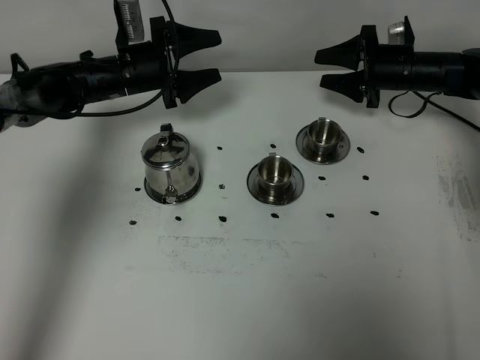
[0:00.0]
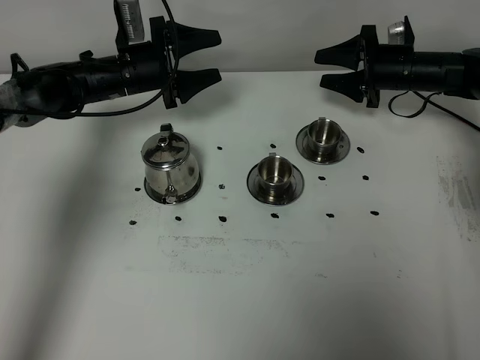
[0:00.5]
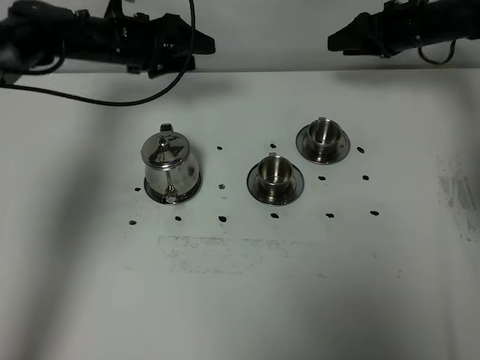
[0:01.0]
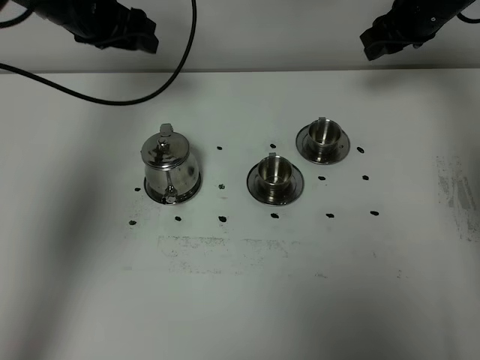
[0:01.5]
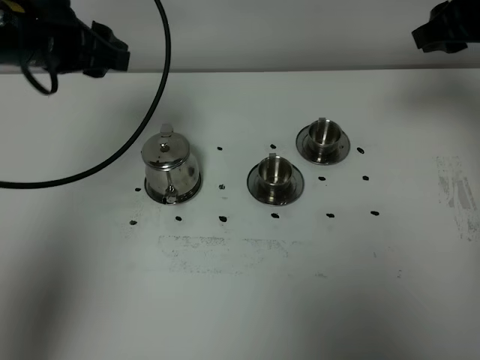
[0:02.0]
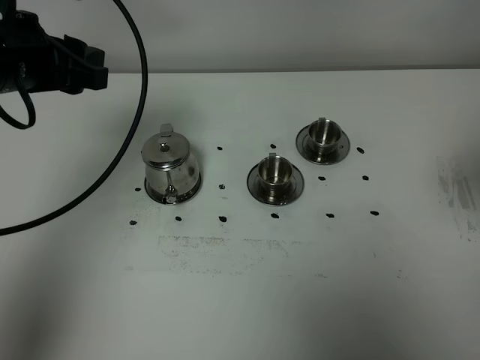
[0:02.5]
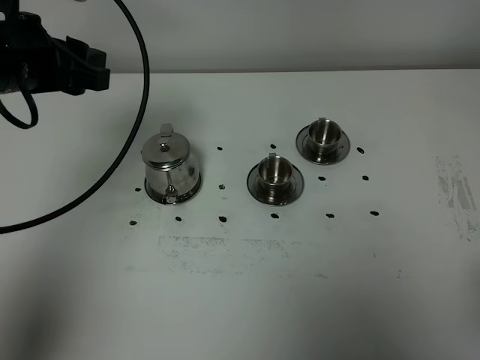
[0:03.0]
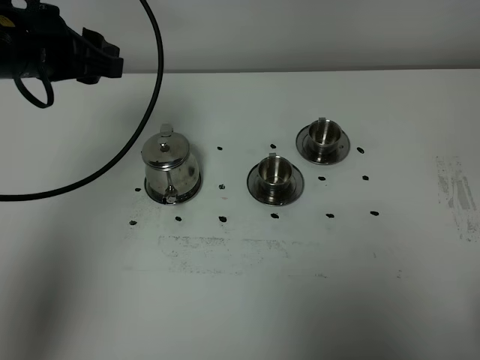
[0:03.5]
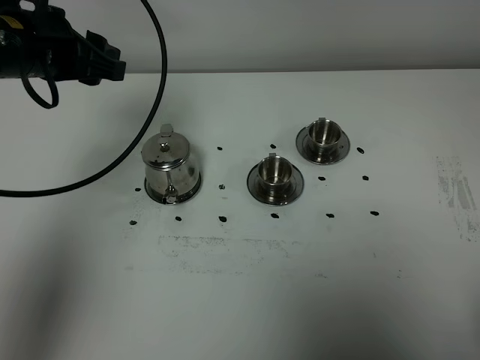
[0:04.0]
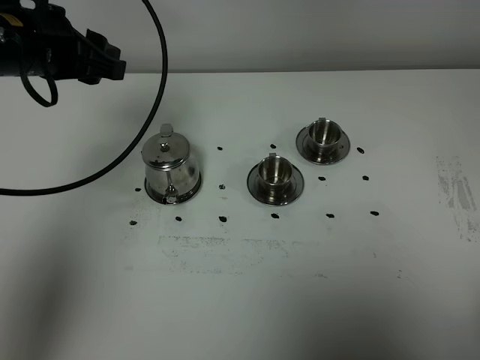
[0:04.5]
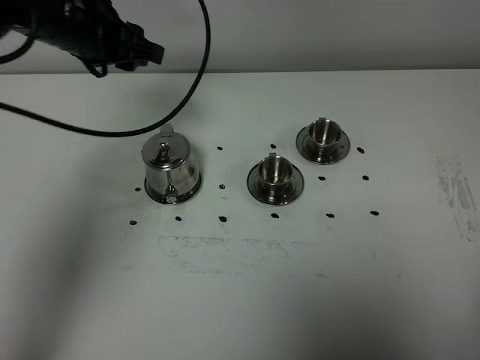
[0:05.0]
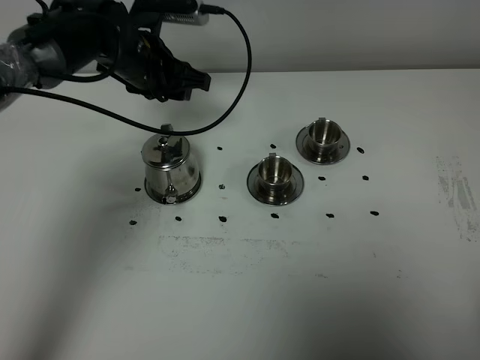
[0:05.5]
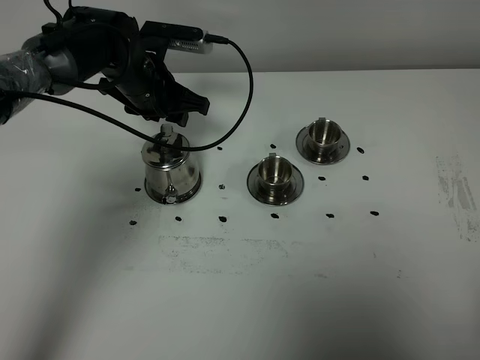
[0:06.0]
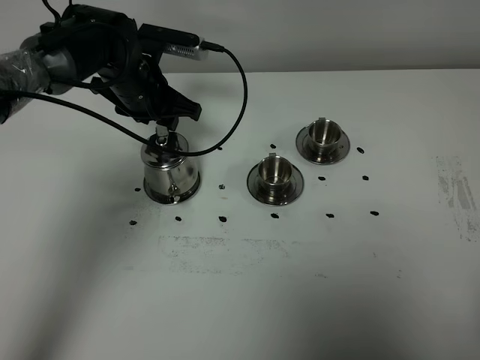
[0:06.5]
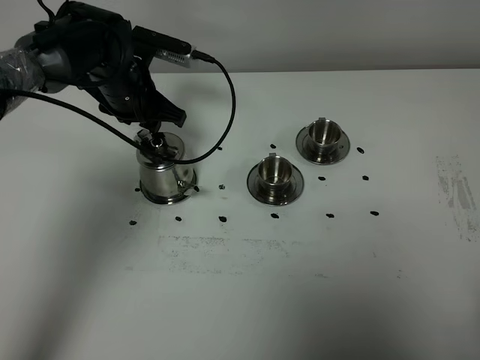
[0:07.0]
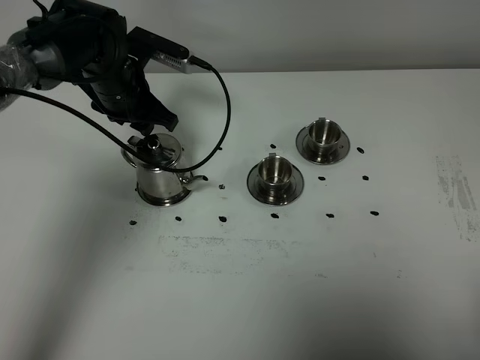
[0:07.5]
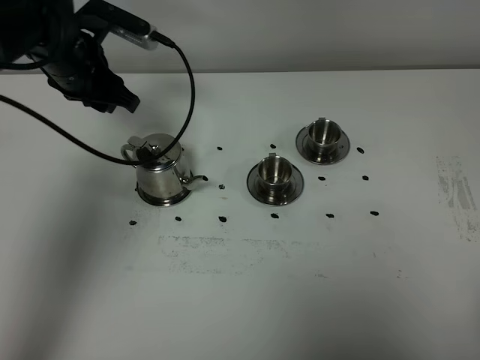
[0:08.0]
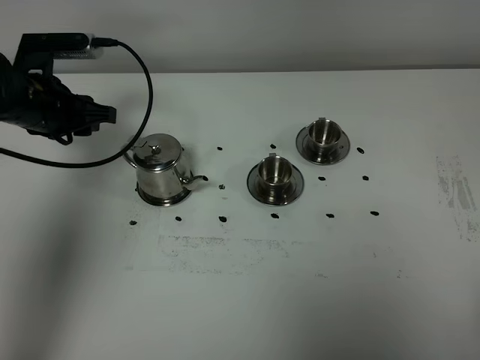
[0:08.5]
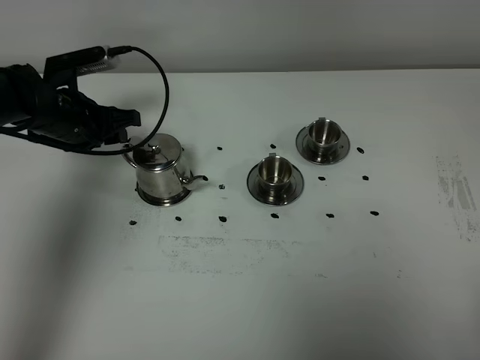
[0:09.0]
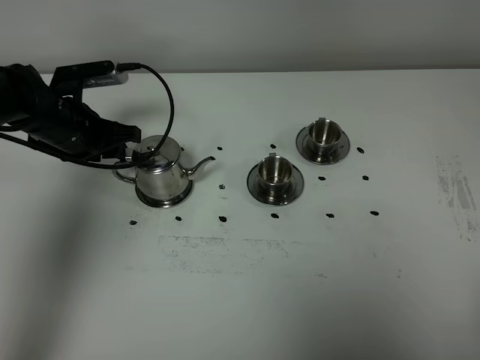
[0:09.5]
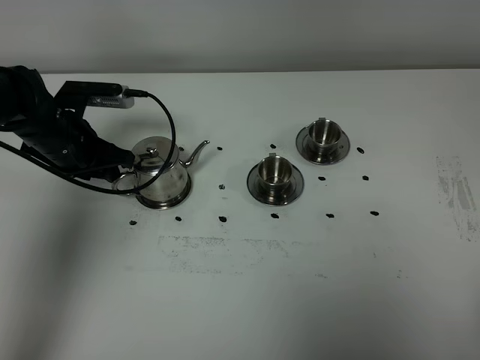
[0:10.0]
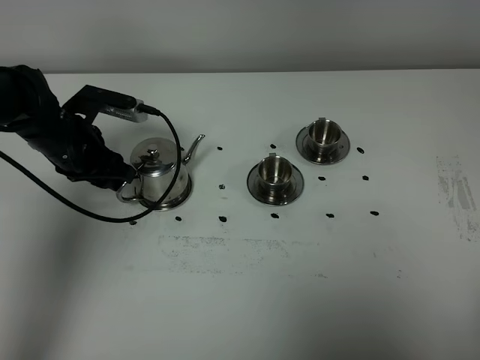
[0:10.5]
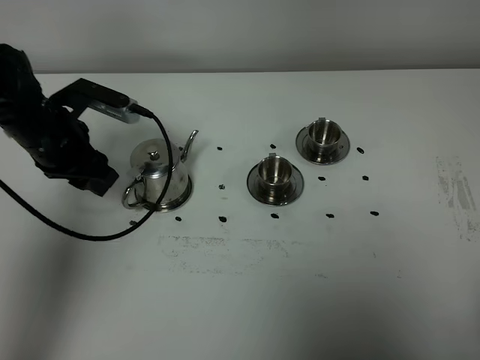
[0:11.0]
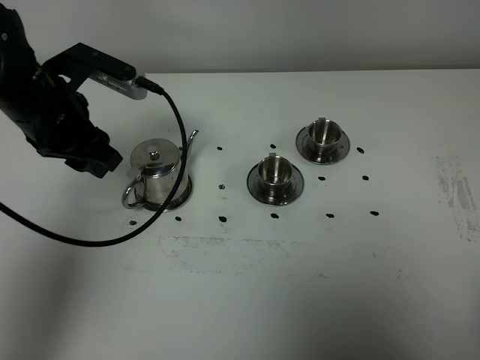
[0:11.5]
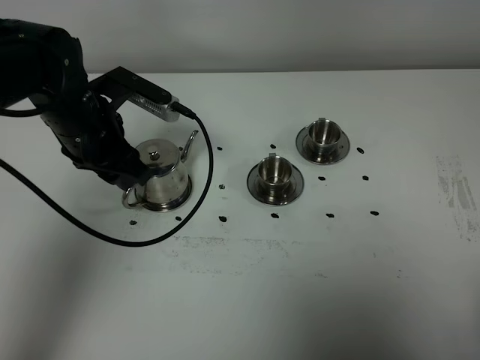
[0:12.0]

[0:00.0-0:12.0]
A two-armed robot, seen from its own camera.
Task of the whole recording: grasp the stainless steel teapot and pour the tea into the two stainless steel teacups one by one, put the stainless steel teapot back in its original place.
0:00.0 to 0:02.0: Both grippers move upward and backward, some 25 cm. The right gripper closes its fingers.
0:02.0 to 0:04.0: The right gripper shifts some 40 cm backward, and closes up.
0:04.0 to 0:06.0: The left gripper goes some 20 cm downward, forward and to the right.
0:06.0 to 0:08.0: The left gripper heads to the left and upward, covering about 10 cm.
0:08.0 to 0:10.0: The left gripper is displaced downward by roughly 10 cm.
0:10.0 to 0:12.0: The left gripper moves upward and to the right, approximately 10 cm.

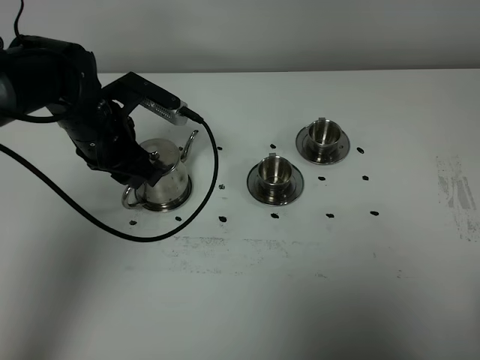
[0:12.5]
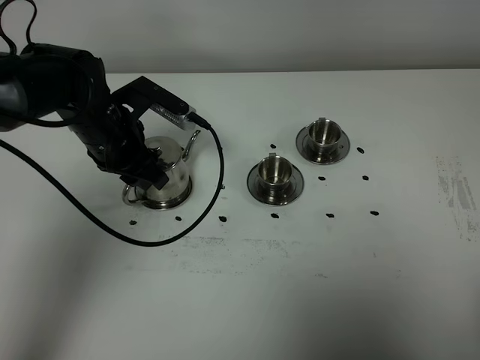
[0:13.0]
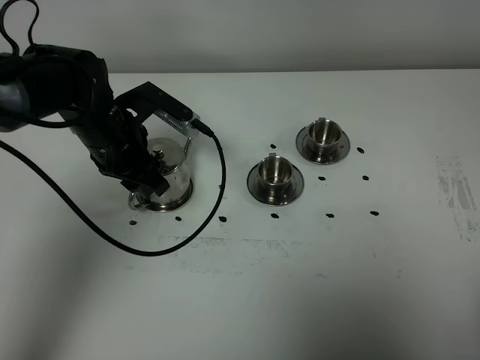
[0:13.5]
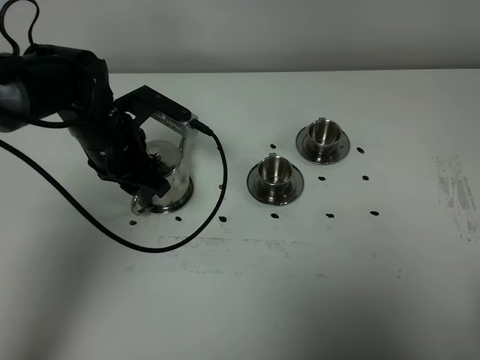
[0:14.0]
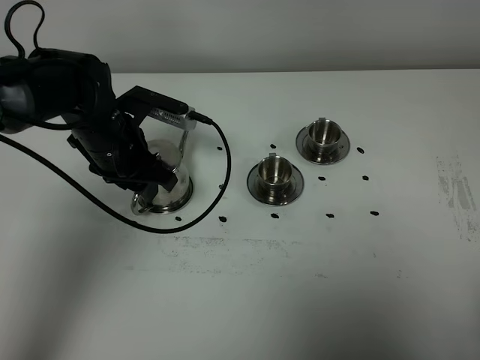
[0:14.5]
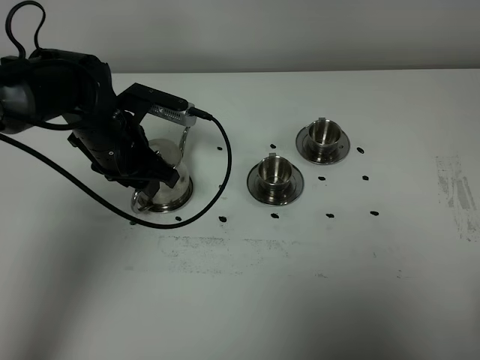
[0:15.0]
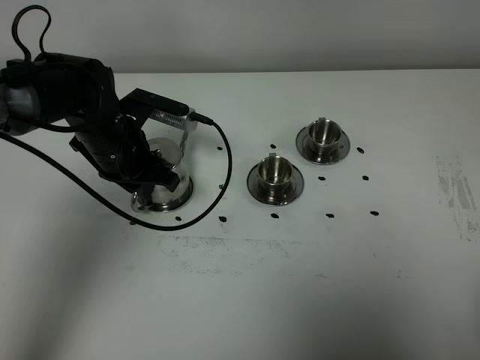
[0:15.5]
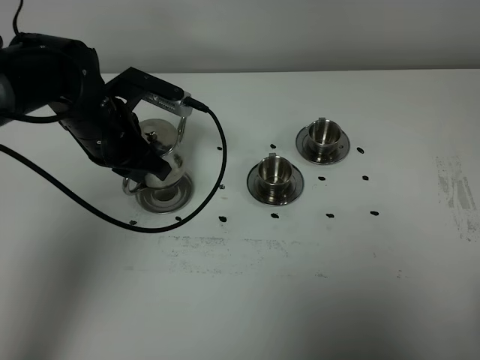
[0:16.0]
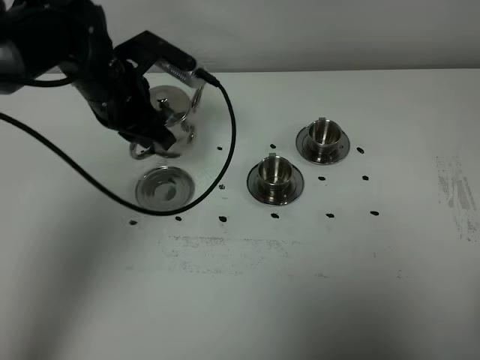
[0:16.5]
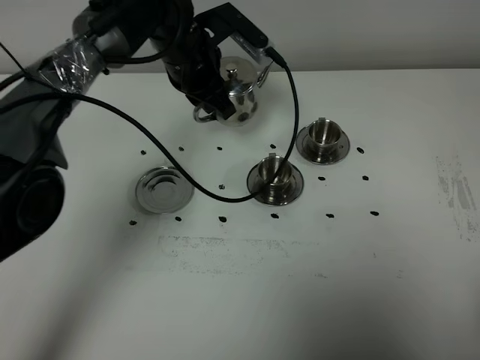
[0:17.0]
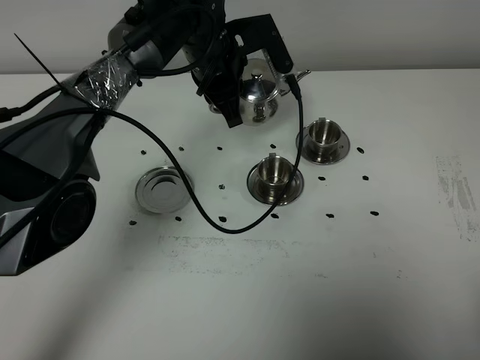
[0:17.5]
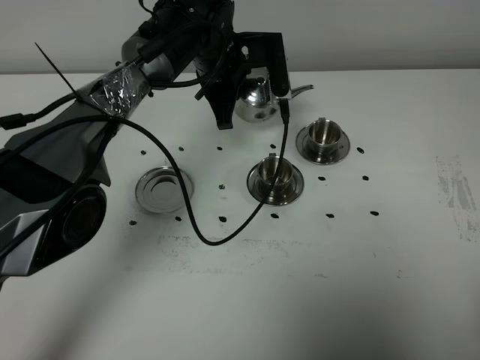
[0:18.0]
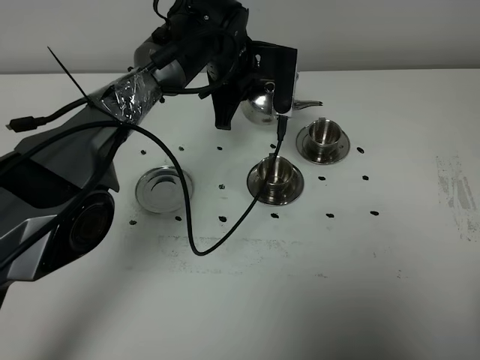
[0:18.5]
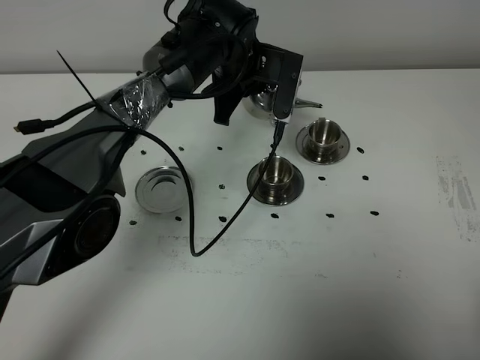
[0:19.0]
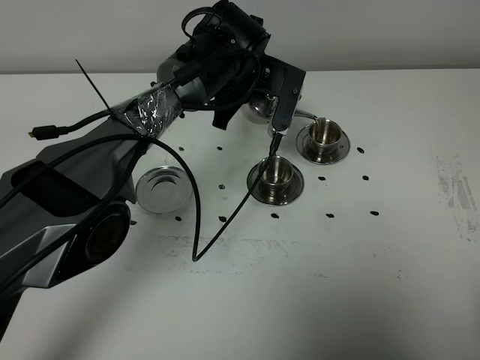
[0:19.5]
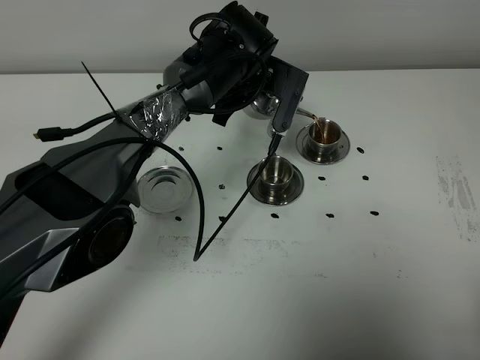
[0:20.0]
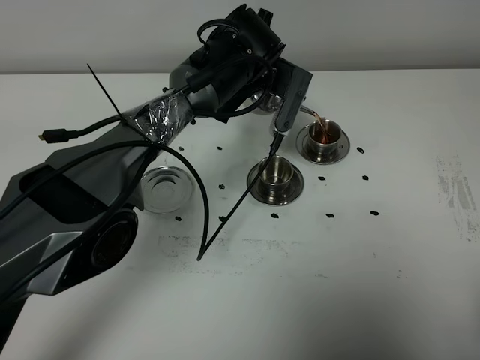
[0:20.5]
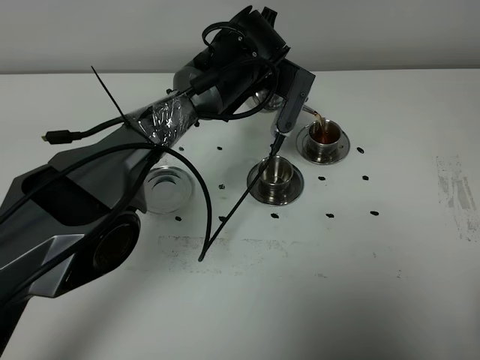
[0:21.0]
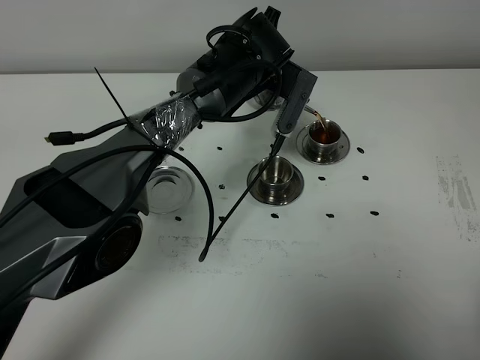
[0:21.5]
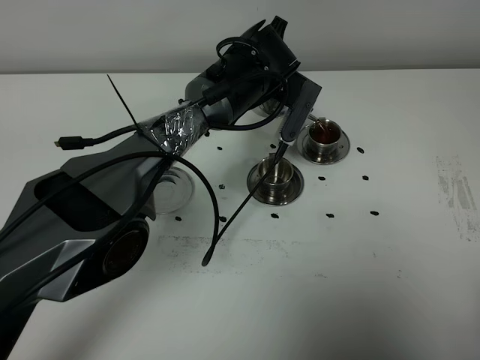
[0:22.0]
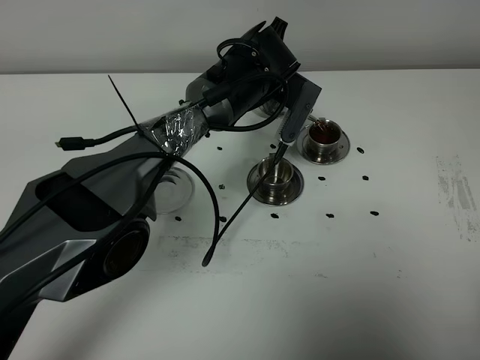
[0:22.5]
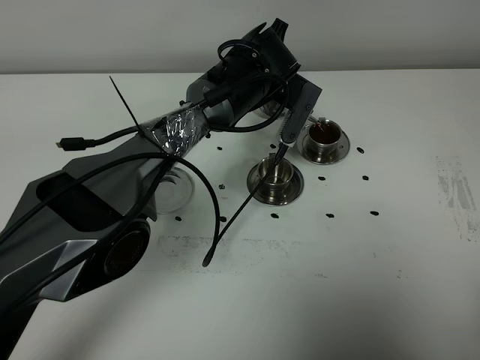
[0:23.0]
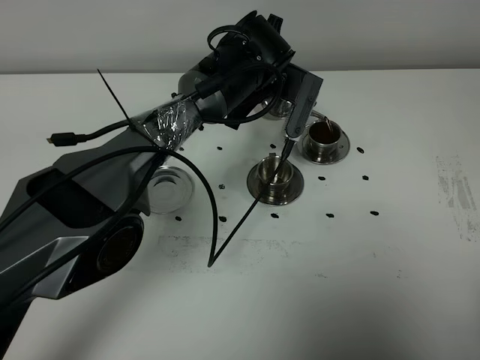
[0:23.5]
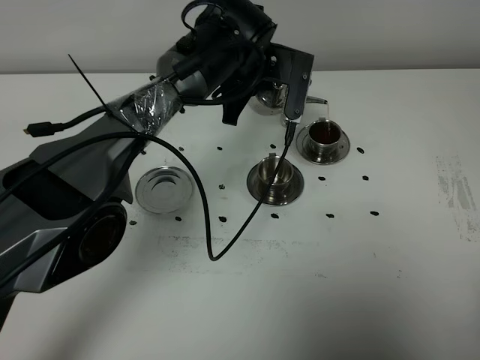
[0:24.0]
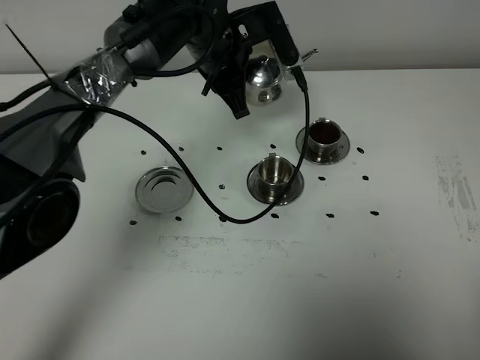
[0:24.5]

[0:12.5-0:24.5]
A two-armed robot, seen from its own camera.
Task of the whole recording: grasp the stainless steel teapot and pour the tea into the two stainless steel teacups one by one, put the stainless steel teapot back in its original place.
Step, 0:12.5 to 0:15.5: Pick up the teapot with the left gripper.
0:12.5 to 0:14.5: The grippers move only a little.
0:14.5 to 0:16.5: The left gripper travels upward by roughly 5 cm, and closes.
0:16.5 to 0:18.5: The left gripper moves to the right and forward, approximately 15 cm.
0:20.5 to 0:22.5: There are only small adjustments of the grippers.
0:22.5 to 0:24.5: The left gripper goes roughly 5 cm to the left.

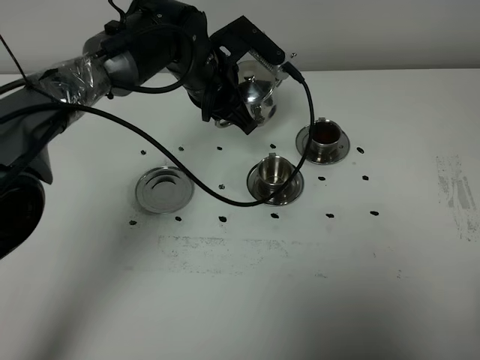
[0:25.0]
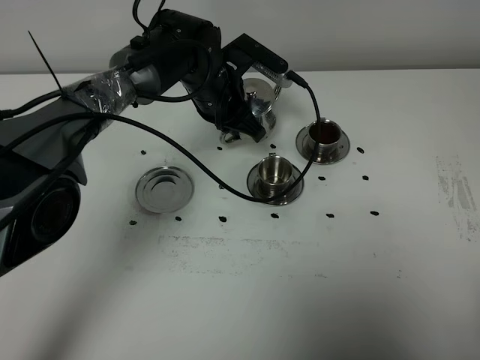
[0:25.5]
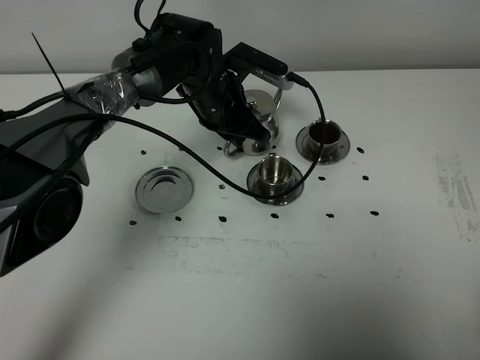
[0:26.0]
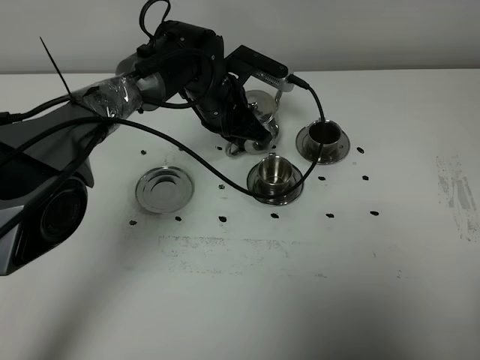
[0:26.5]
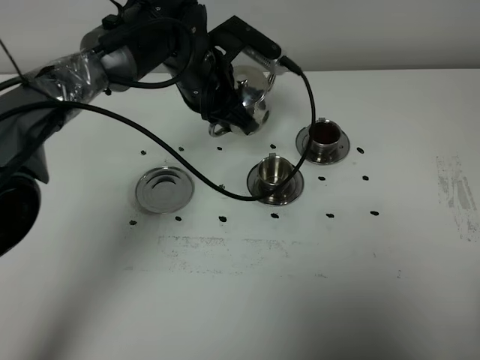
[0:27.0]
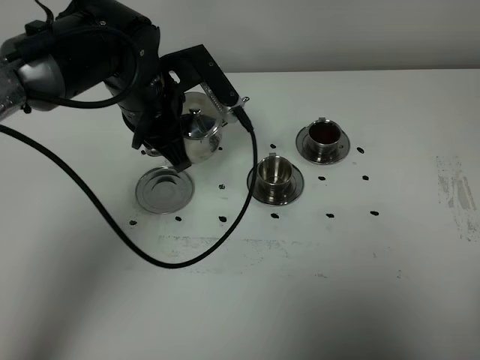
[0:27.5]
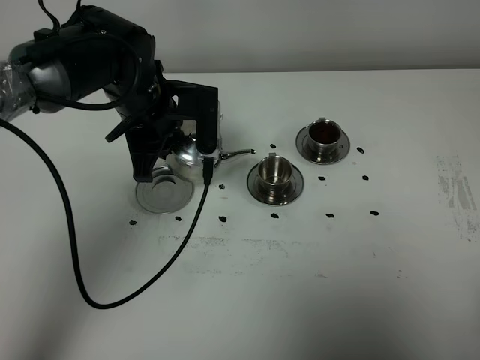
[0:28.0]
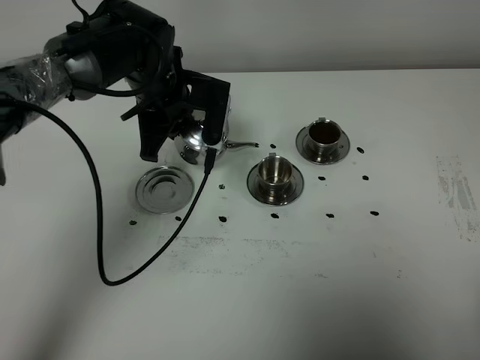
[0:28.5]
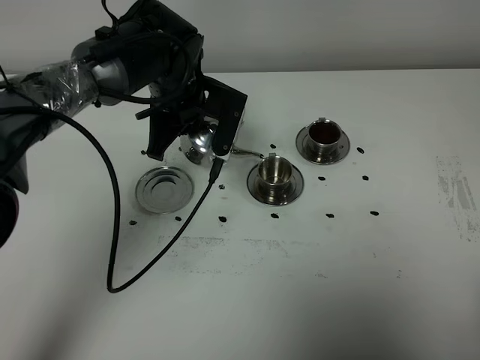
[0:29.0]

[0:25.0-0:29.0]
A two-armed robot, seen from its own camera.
Task of the whole recording: grasp the stainless steel teapot and pour the tea into the two stainless steel teacups one by one, put the stainless steel teapot back in its original place.
0:25.0 to 0:27.0: The grippers make only small movements.
